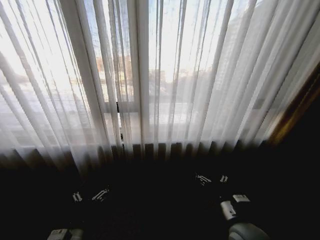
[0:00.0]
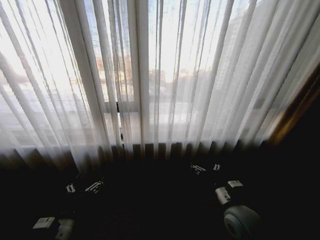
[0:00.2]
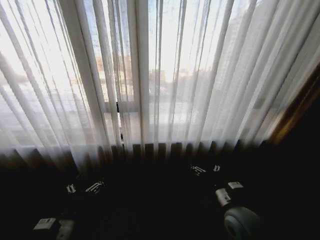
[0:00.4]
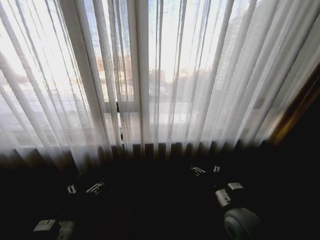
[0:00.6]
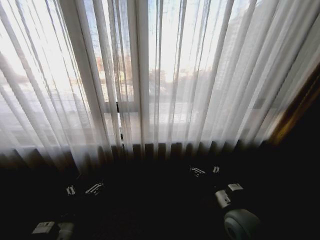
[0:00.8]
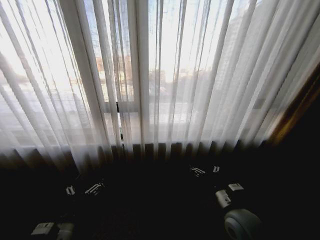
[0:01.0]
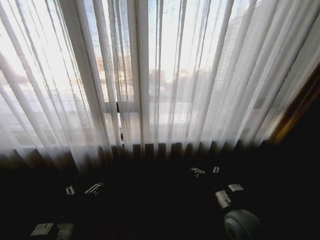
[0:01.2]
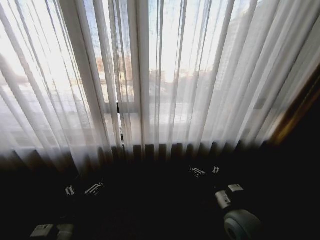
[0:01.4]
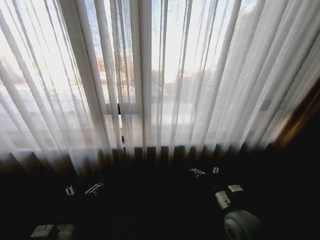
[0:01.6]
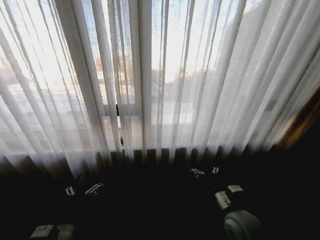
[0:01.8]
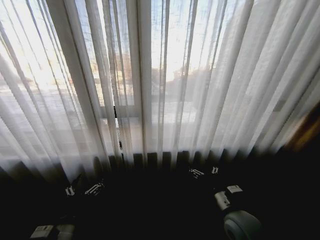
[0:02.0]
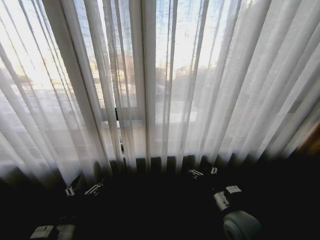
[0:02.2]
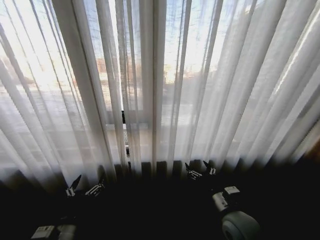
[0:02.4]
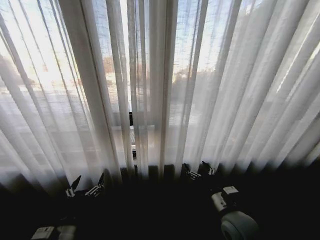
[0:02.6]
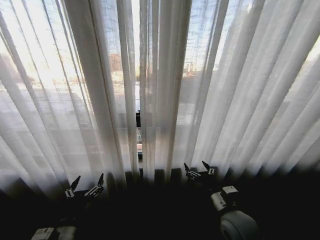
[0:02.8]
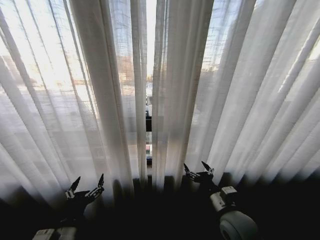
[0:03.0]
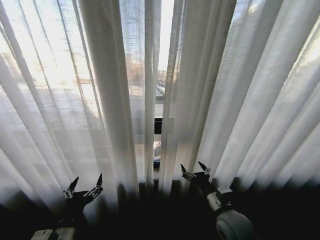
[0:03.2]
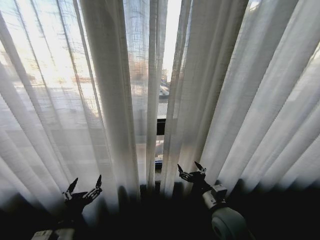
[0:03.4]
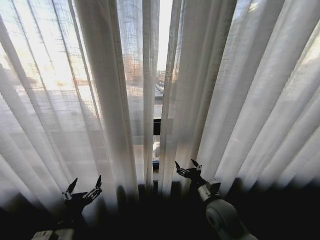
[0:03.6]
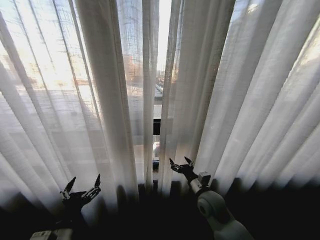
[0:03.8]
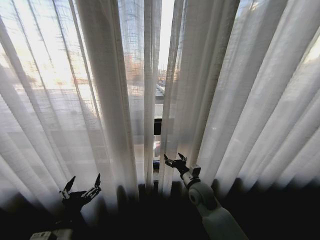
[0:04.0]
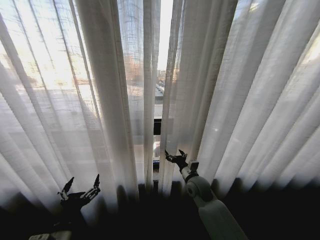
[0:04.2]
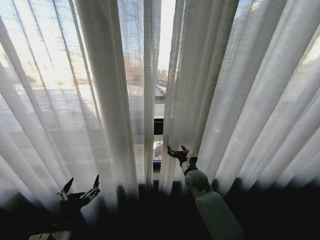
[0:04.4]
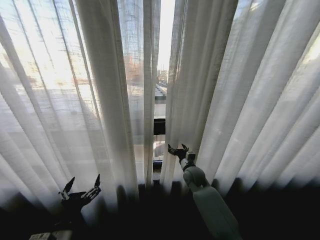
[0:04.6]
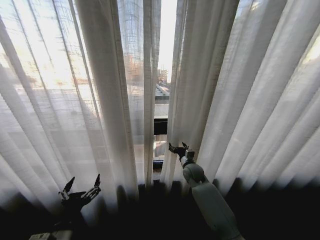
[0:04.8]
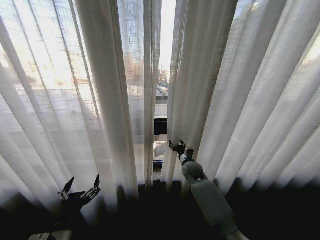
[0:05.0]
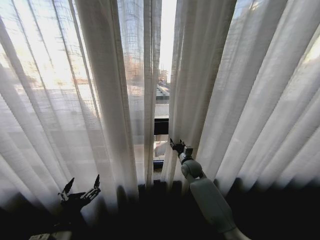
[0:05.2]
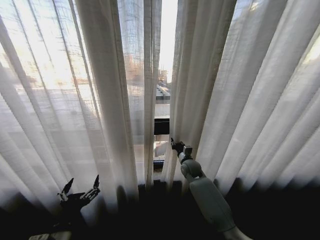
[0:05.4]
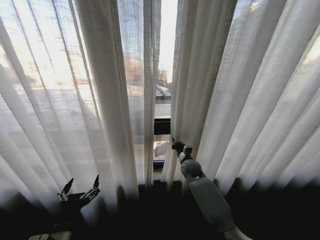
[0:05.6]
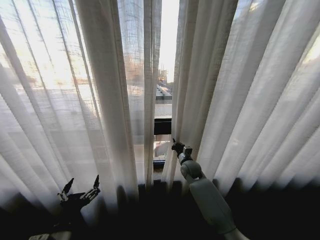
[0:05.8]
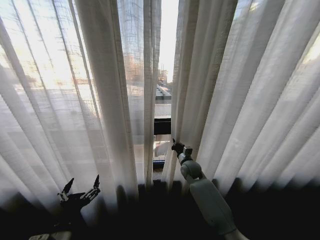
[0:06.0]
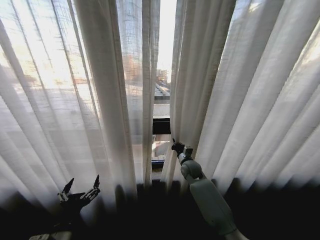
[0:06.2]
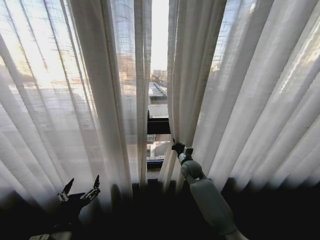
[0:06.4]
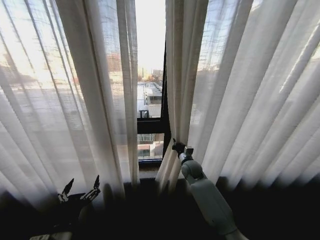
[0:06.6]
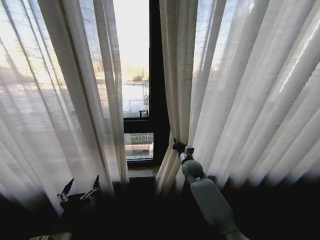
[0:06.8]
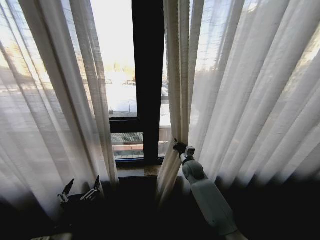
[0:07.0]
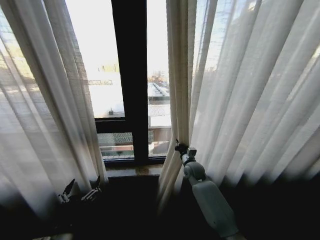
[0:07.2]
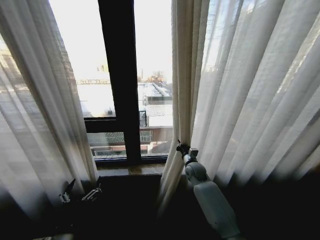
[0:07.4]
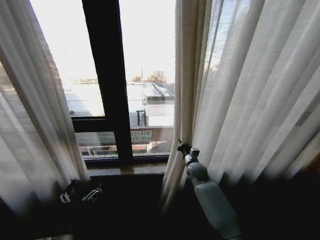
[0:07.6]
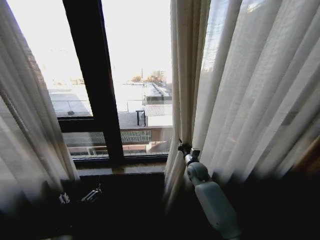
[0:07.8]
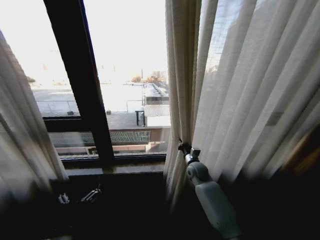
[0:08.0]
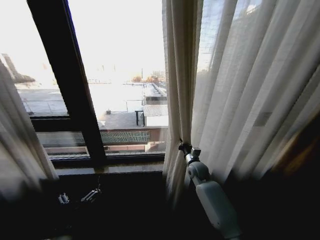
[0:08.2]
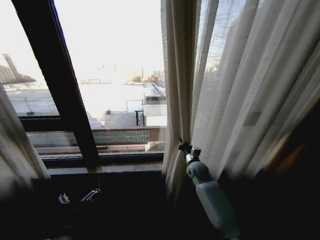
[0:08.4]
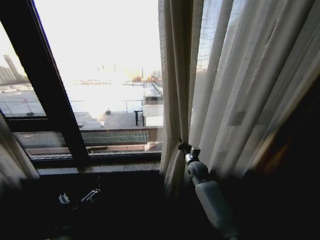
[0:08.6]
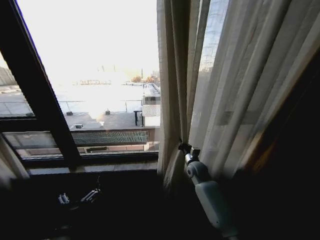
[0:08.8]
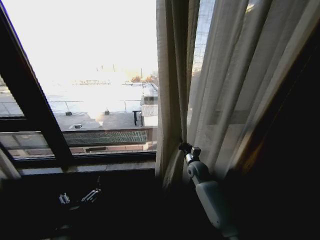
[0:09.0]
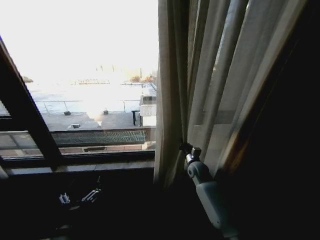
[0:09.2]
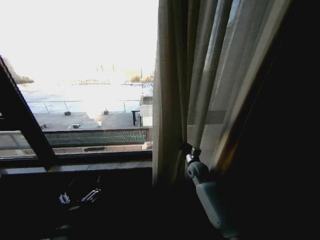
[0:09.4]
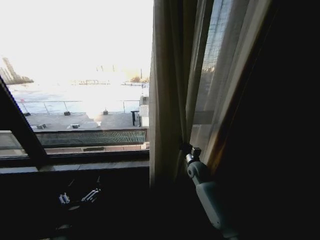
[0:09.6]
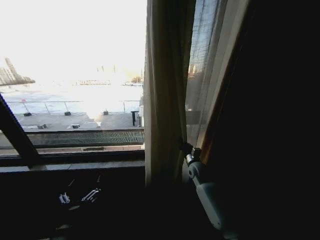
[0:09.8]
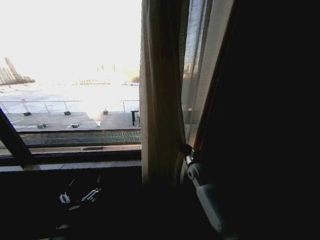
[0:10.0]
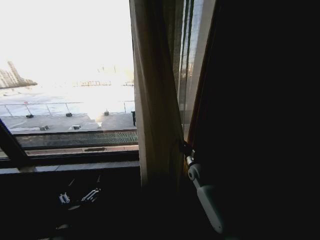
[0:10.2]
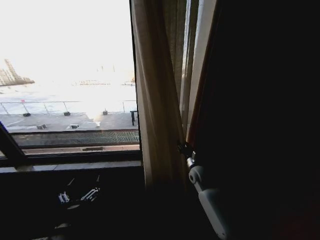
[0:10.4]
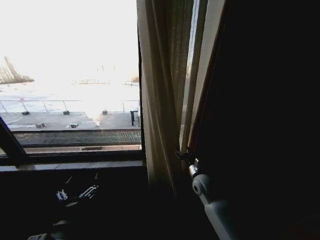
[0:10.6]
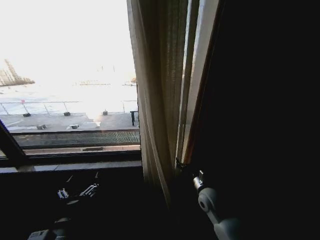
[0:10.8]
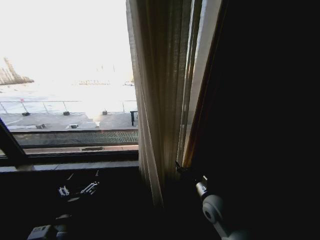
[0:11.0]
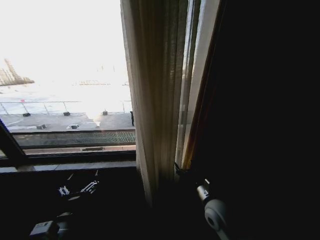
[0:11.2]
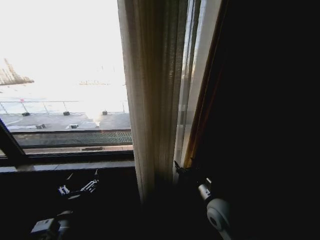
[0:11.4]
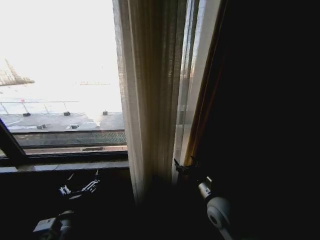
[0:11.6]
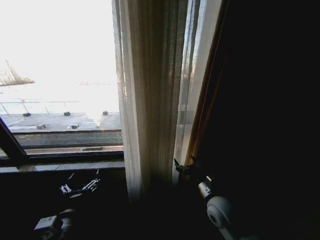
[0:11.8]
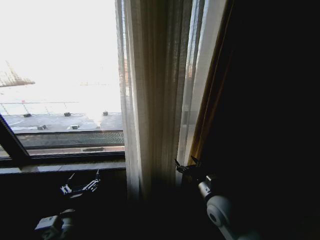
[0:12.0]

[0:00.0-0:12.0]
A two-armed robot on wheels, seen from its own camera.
Task of the whole recording: Open the curtains by pulling them apart, changing their state from closed to fully open.
0:03.0 to 0:04.4: The right gripper shifts roughly 20 cm forward.
0:04.4 to 0:06.0: The right gripper heads forward, covering some 5 cm, and closes.
0:09.0 to 0:10.4: The right gripper opens up.
0:10.4 to 0:12.0: The right gripper shifts some 15 cm backward, and opens up.

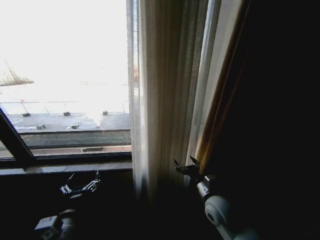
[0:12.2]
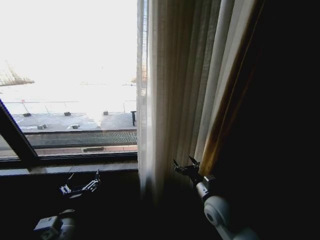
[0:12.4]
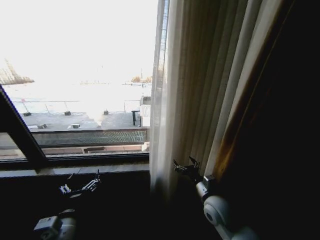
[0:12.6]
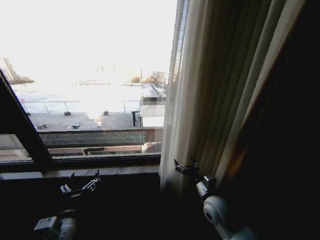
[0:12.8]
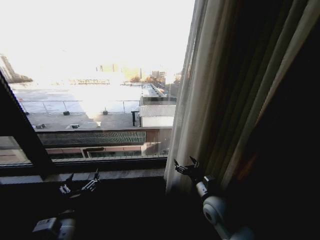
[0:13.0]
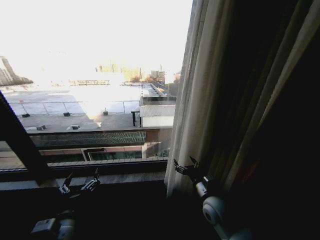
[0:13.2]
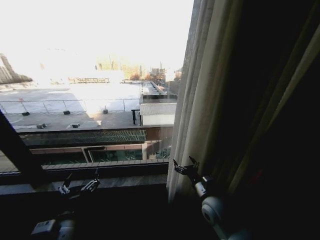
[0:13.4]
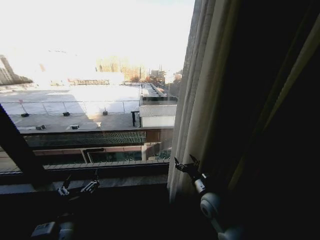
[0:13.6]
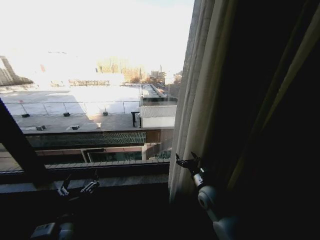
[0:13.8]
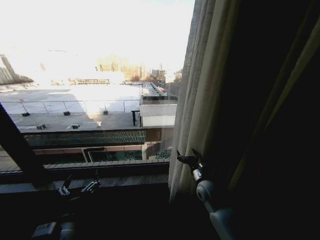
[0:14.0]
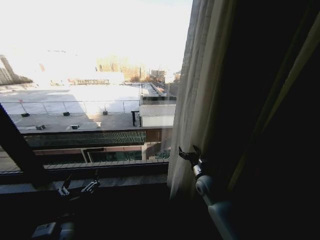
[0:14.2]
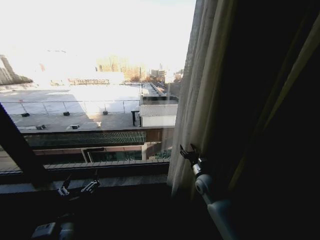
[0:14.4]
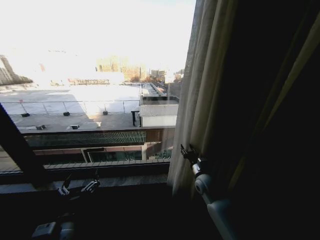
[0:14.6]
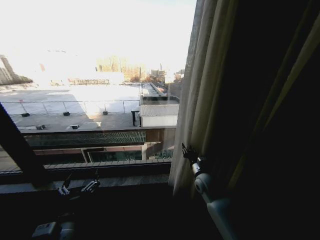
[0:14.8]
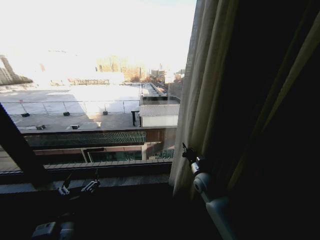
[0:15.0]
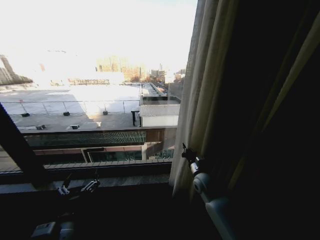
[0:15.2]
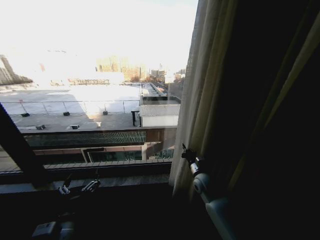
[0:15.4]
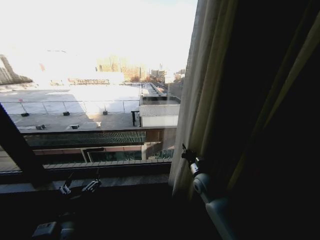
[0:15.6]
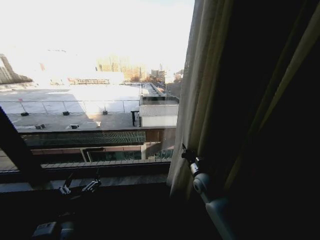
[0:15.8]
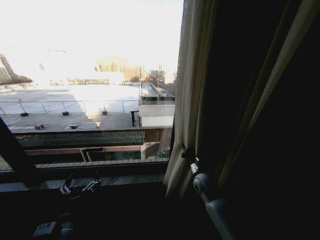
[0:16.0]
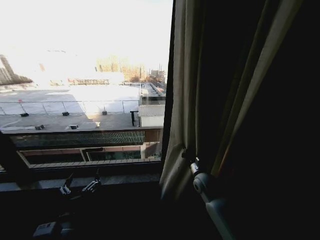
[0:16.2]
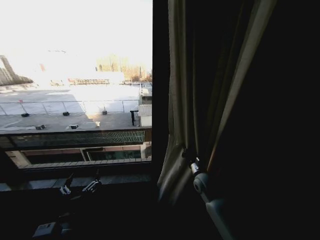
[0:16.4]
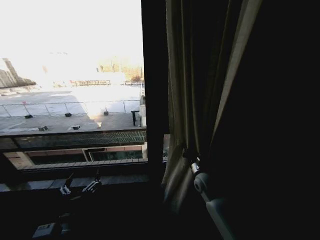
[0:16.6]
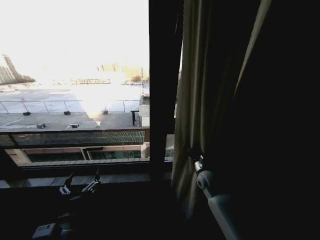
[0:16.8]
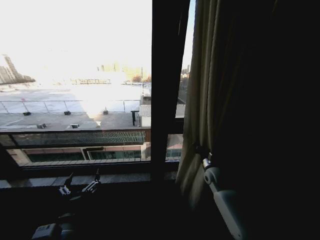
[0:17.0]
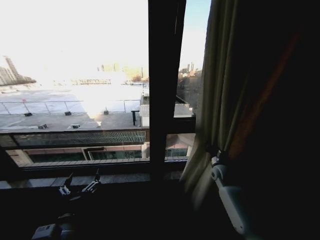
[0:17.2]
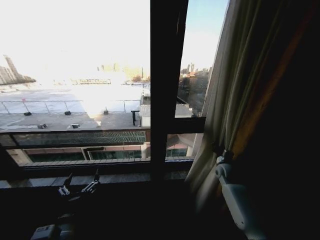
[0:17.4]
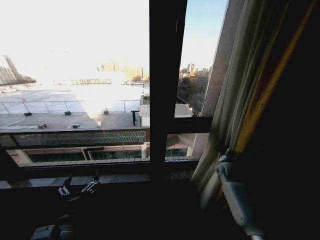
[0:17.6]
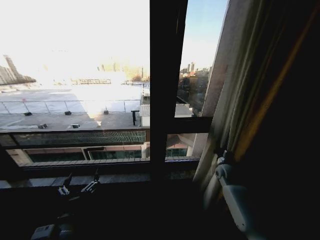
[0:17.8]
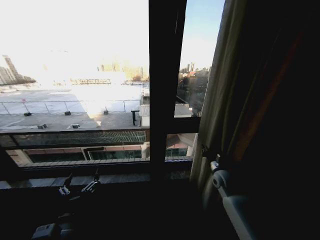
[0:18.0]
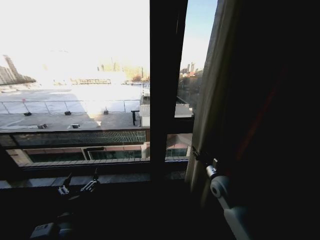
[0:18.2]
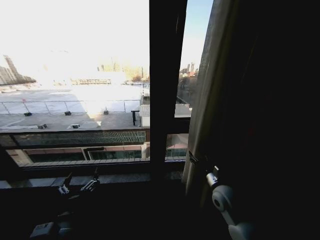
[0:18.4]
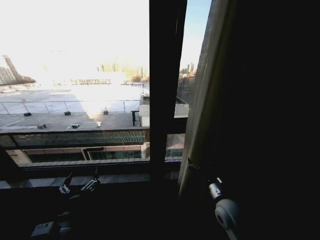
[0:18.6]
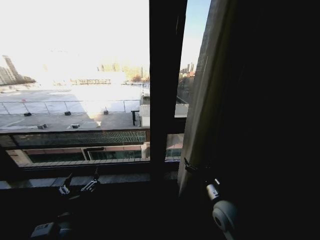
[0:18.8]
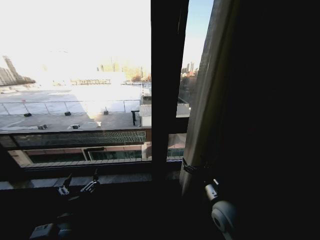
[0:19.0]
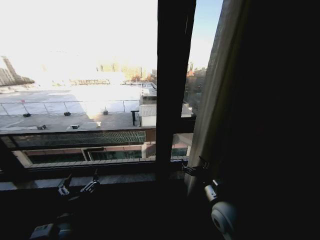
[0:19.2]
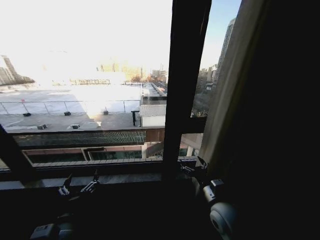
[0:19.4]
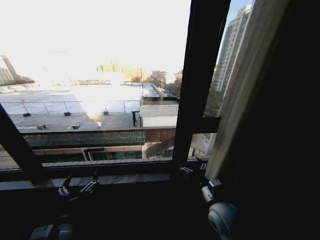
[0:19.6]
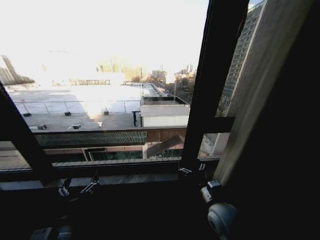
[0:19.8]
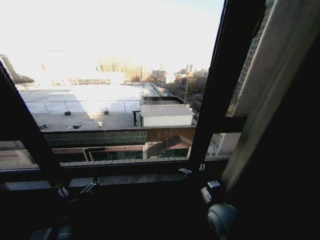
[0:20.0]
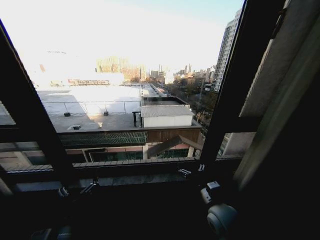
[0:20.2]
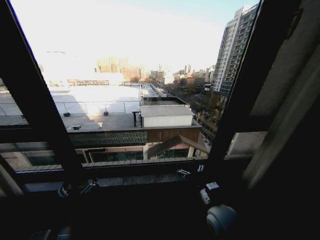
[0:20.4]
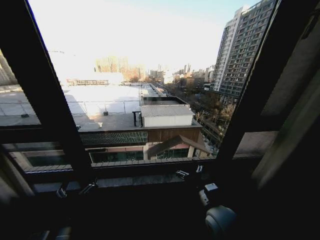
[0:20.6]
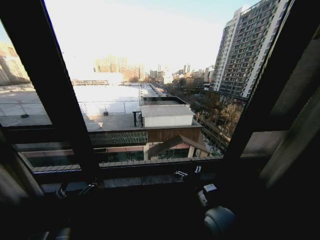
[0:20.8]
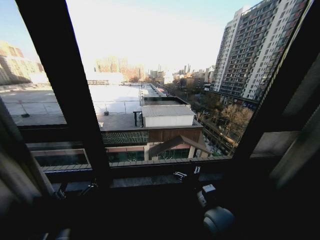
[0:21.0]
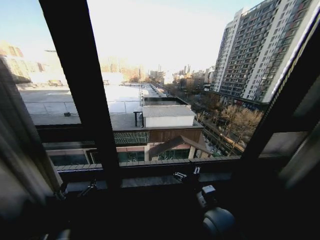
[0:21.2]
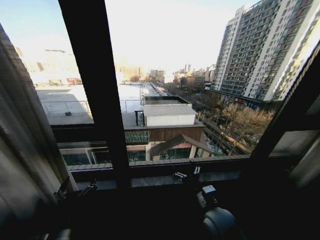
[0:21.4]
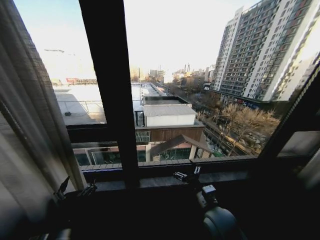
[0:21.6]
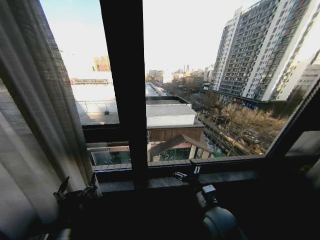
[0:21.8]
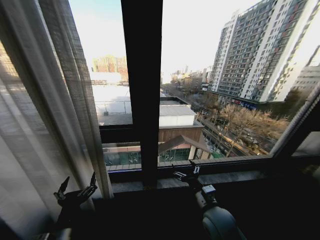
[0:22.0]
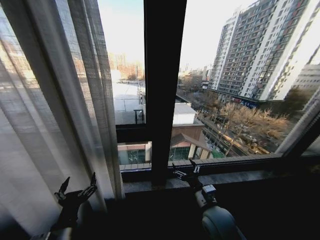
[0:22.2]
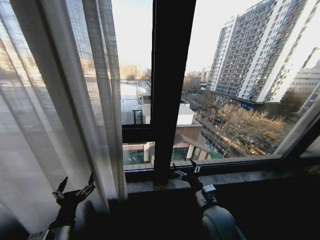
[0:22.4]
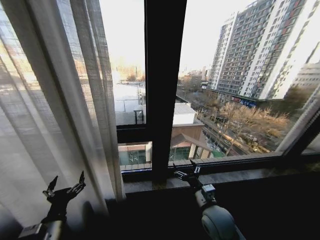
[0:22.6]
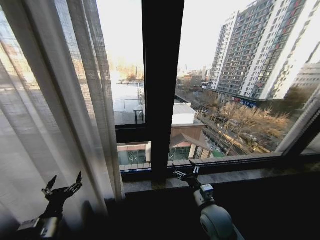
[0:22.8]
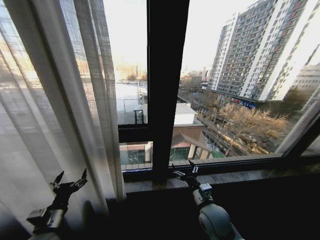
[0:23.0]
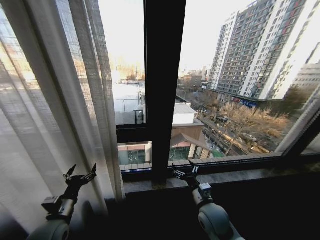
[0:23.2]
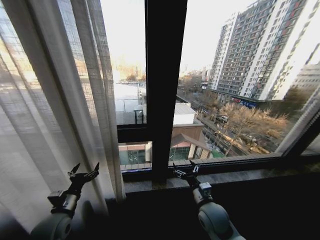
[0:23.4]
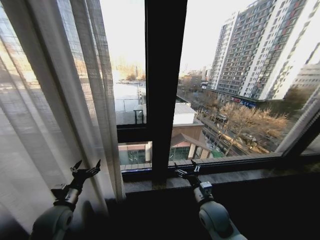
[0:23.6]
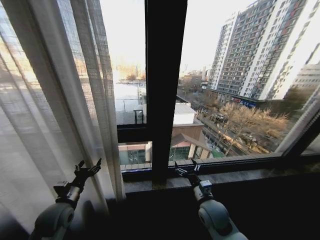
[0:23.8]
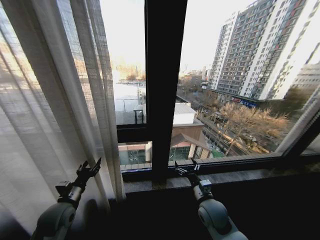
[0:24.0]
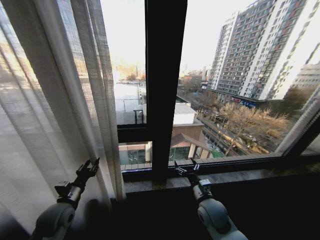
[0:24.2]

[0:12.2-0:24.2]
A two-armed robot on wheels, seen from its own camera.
Task of the whole recording: Open the curtains by pulling them apart, changing their state from closed to fully open.
0:13.8 to 0:15.2: The right gripper shifts approximately 5 cm forward, and closes its fingers.
0:16.6 to 0:18.2: The right gripper is displaced to the right by approximately 5 cm, and opens its fingers.
0:18.2 to 0:19.8: The right gripper shifts some 10 cm backward and to the left, and opens up.
0:21.2 to 0:22.6: The left gripper travels to the left by approximately 5 cm.
0:22.6 to 0:24.2: The left gripper shifts approximately 10 cm forward, and closes its fingers.
